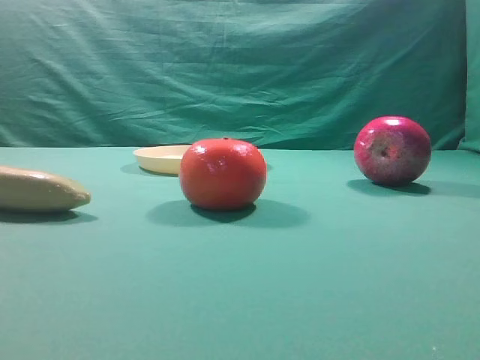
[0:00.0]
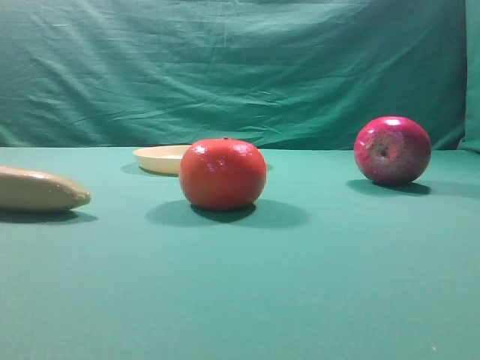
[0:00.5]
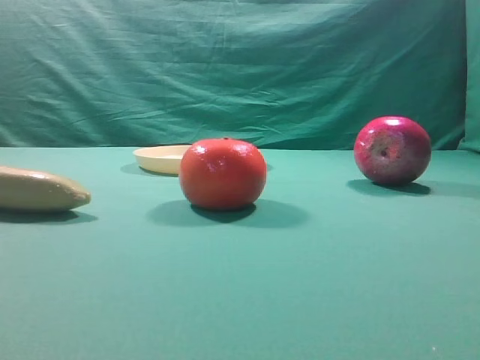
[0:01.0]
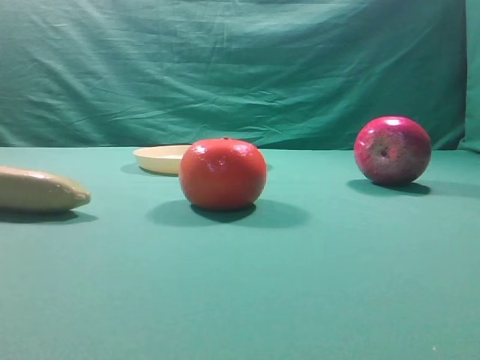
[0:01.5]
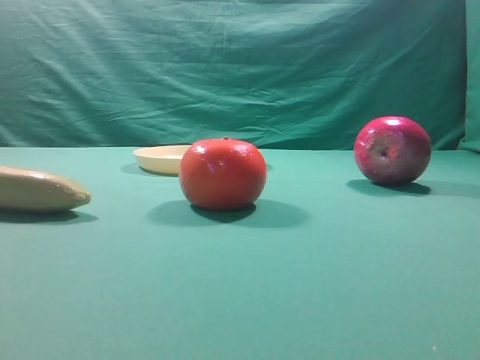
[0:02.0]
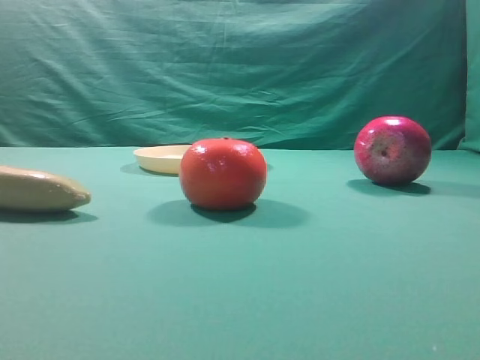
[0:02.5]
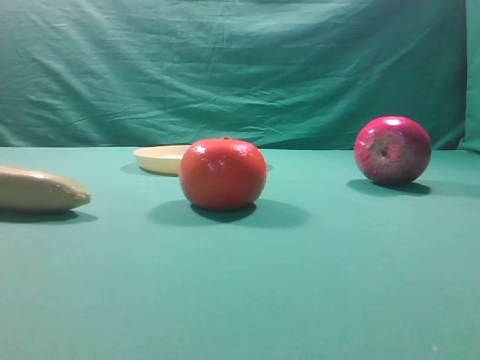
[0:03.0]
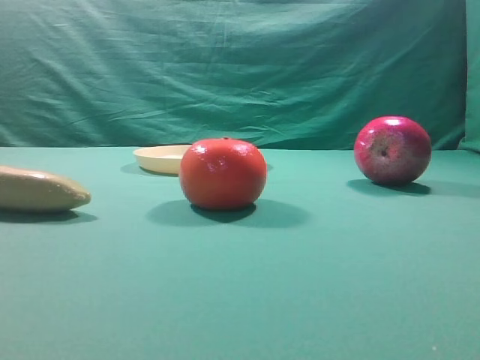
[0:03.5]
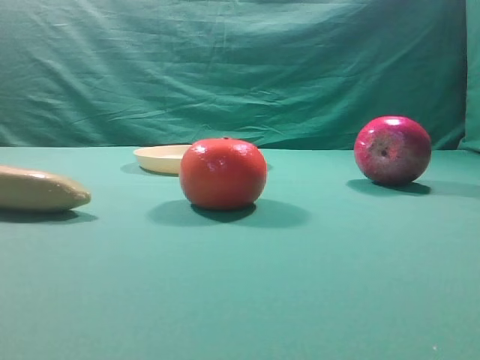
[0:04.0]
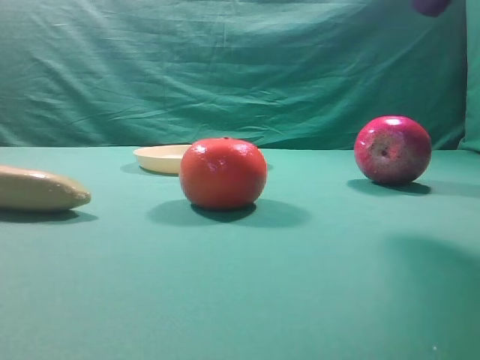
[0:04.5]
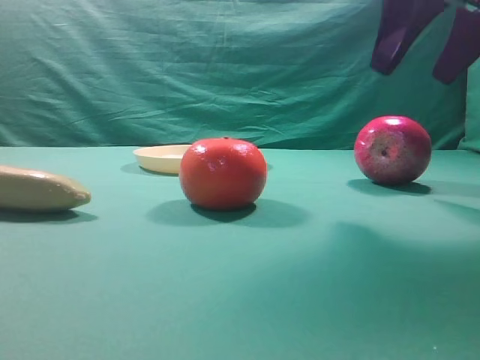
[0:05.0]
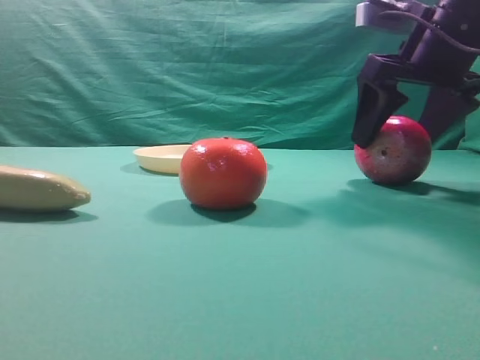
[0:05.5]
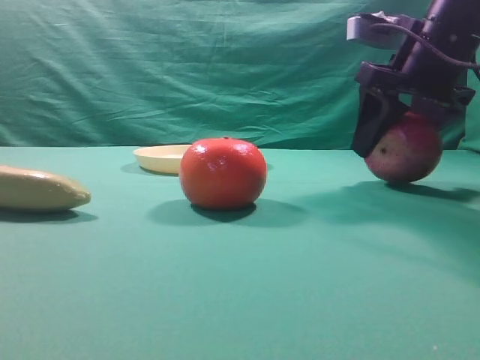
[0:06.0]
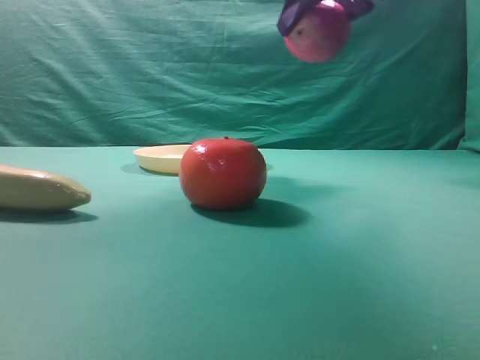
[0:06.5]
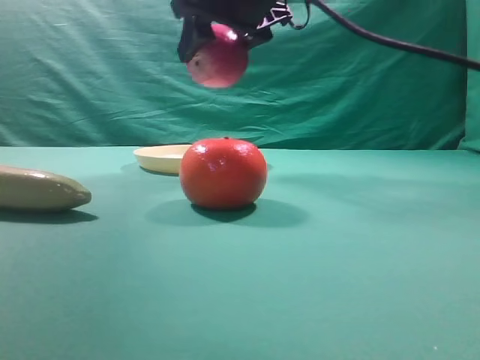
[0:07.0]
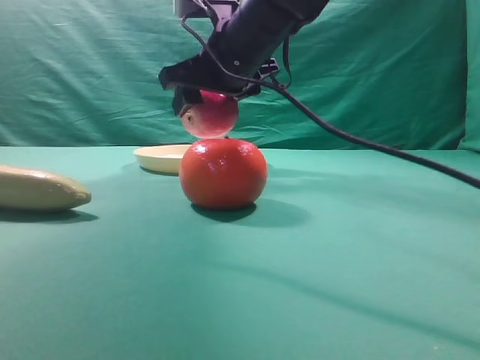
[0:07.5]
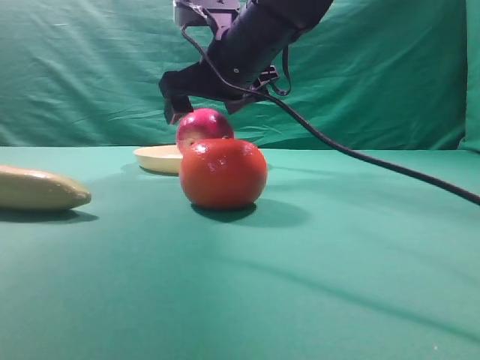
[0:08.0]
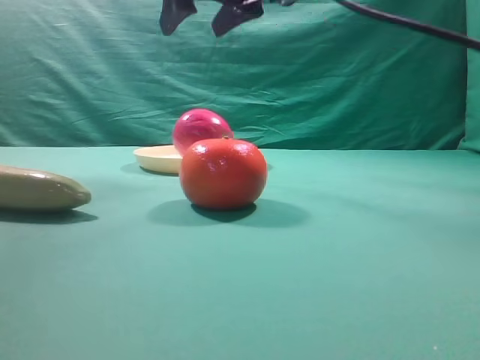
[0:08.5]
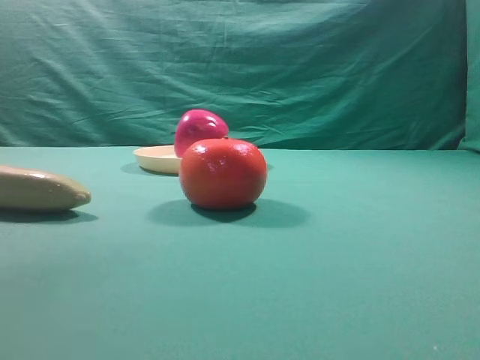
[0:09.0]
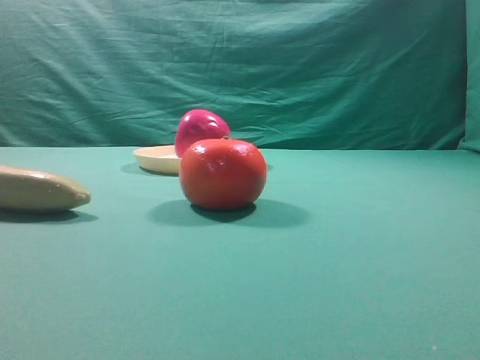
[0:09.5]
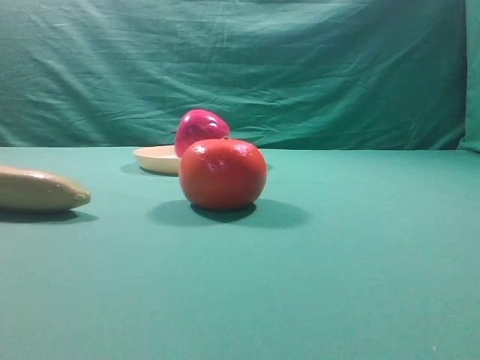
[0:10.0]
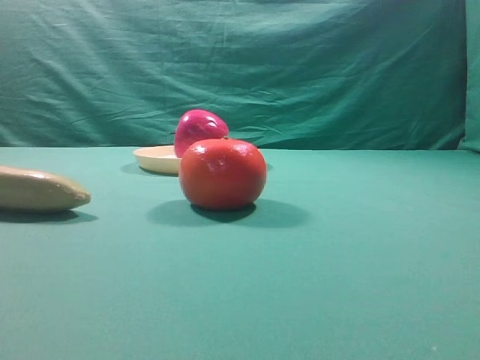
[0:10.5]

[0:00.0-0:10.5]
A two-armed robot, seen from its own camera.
Task of the whole recording: grasp the apple and place it into the yellow plate.
Step, 0:00.0 to 0:06.0: Grasp the fruit that can keep the doctor away.
Step, 0:06.5 to 0:07.0: Place the picked object into the yellow plate.
